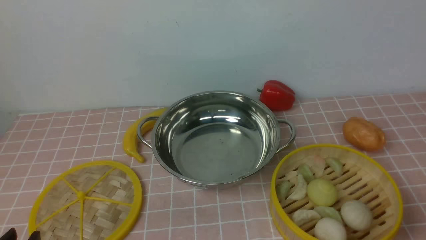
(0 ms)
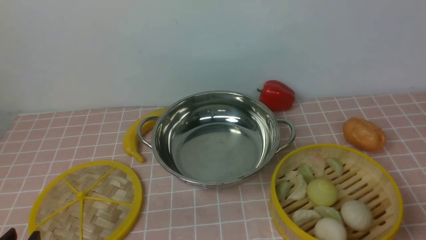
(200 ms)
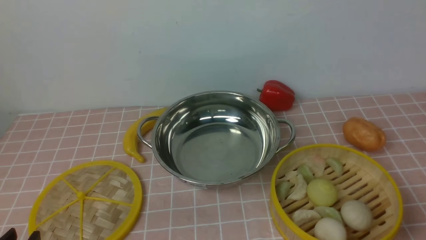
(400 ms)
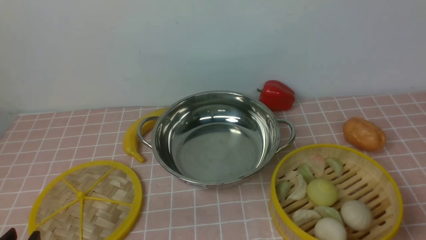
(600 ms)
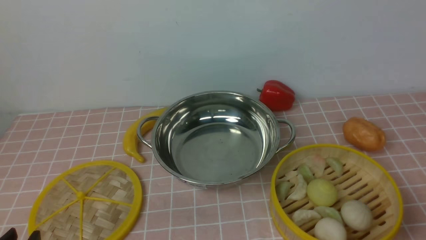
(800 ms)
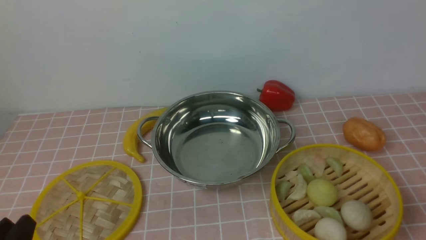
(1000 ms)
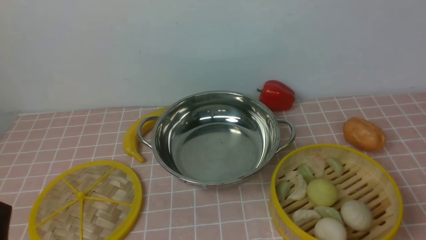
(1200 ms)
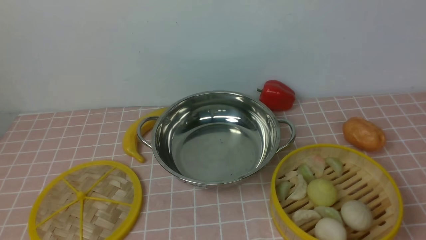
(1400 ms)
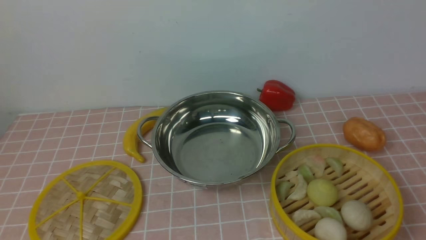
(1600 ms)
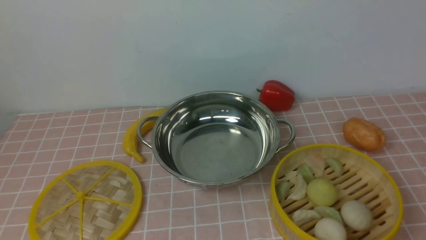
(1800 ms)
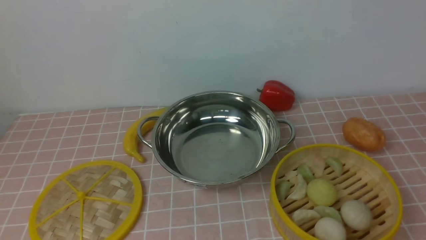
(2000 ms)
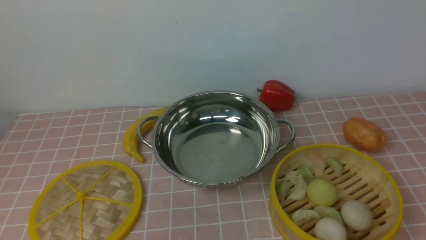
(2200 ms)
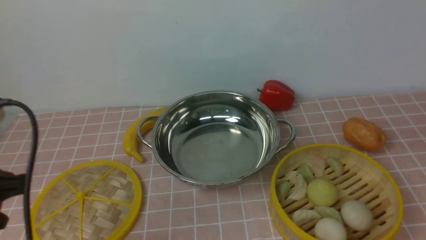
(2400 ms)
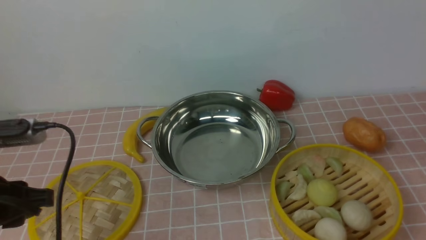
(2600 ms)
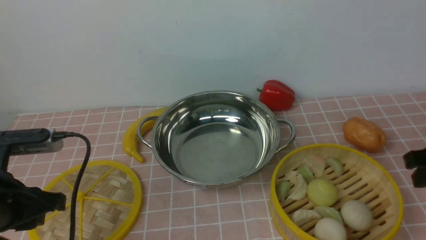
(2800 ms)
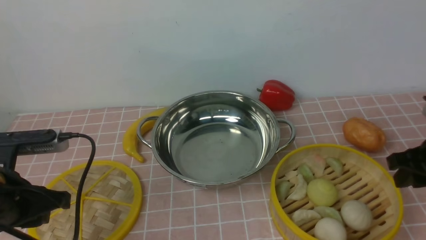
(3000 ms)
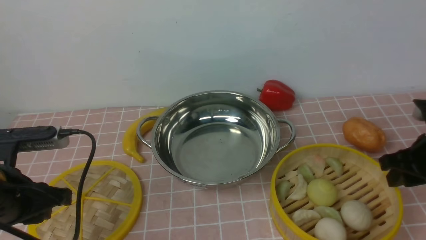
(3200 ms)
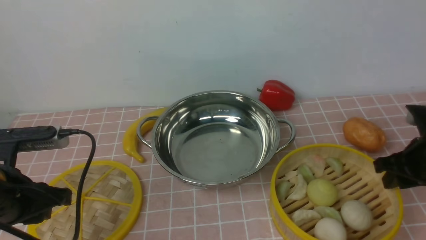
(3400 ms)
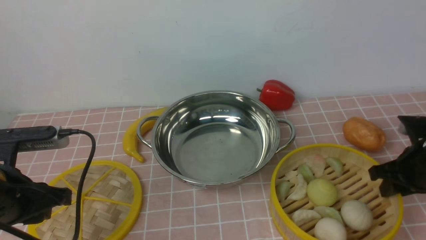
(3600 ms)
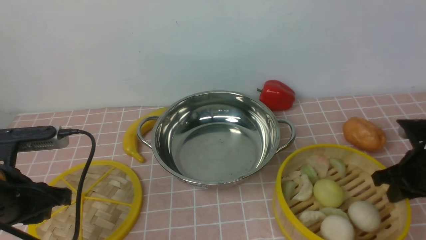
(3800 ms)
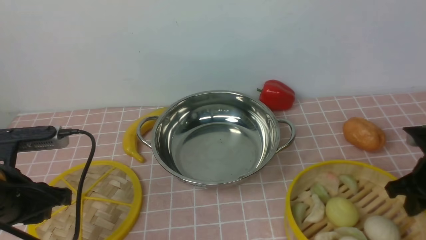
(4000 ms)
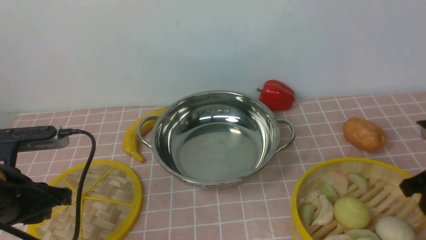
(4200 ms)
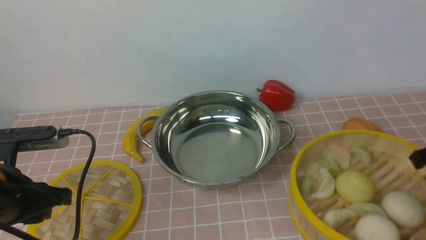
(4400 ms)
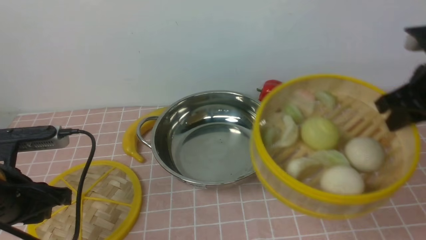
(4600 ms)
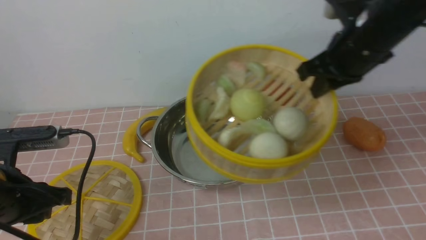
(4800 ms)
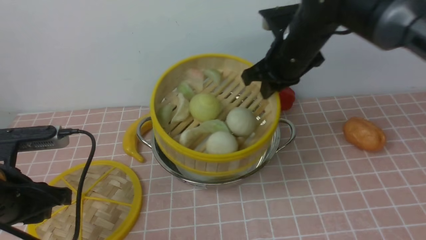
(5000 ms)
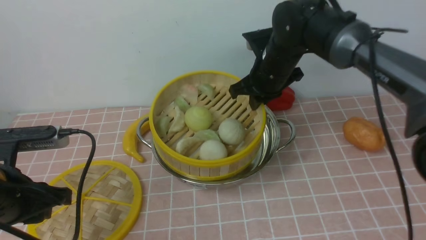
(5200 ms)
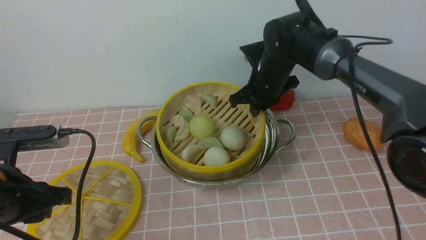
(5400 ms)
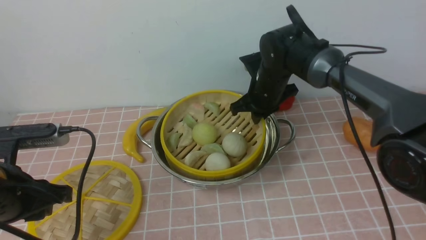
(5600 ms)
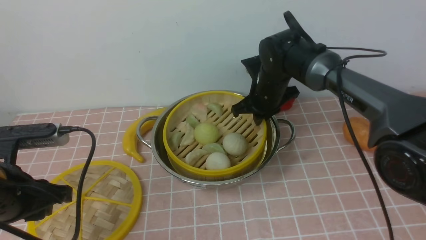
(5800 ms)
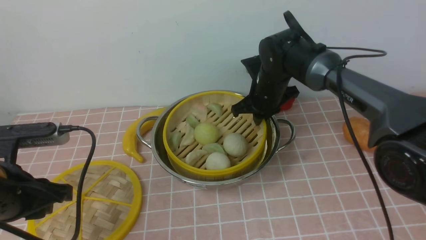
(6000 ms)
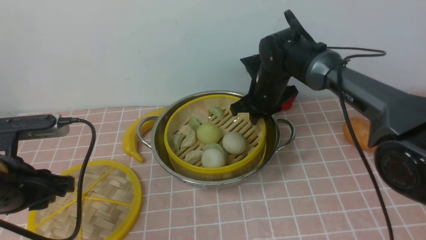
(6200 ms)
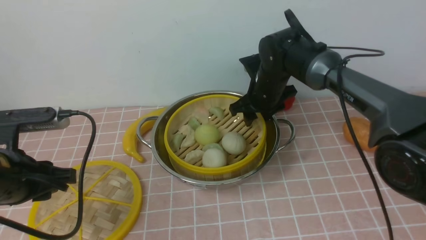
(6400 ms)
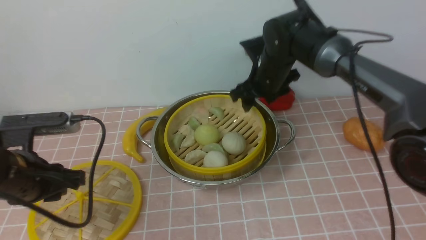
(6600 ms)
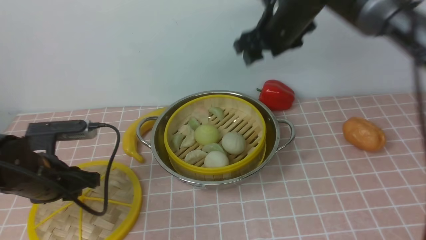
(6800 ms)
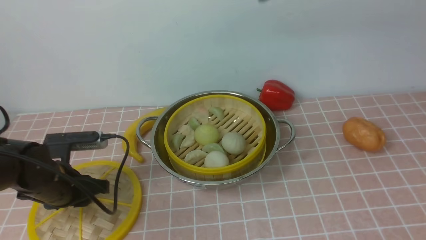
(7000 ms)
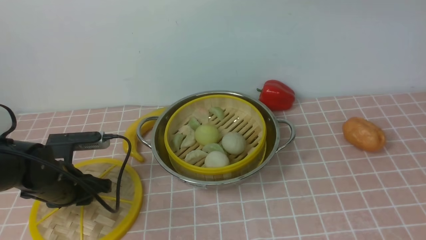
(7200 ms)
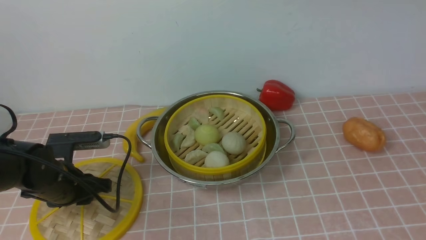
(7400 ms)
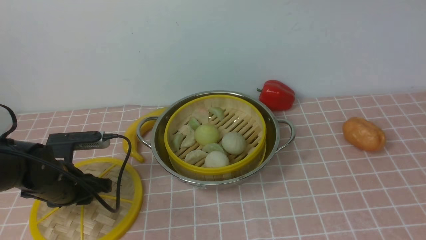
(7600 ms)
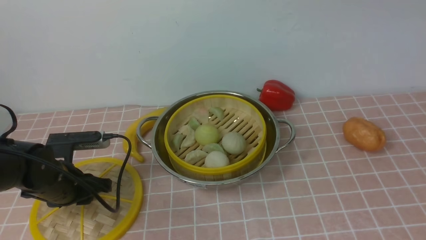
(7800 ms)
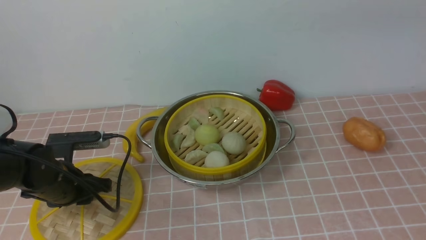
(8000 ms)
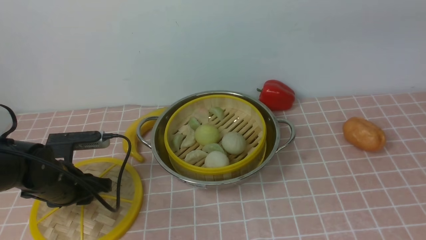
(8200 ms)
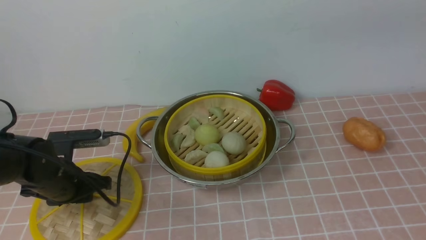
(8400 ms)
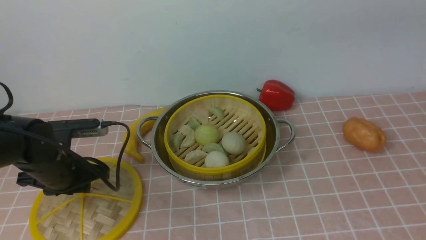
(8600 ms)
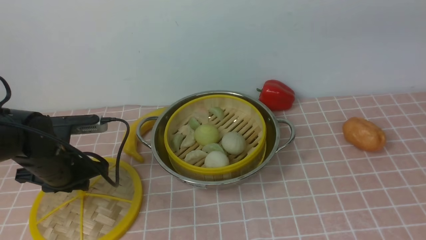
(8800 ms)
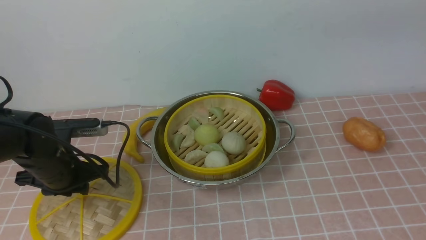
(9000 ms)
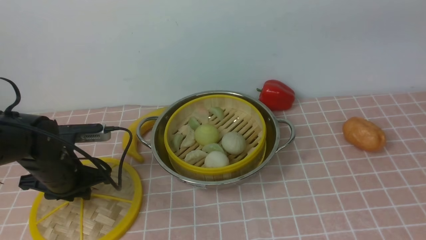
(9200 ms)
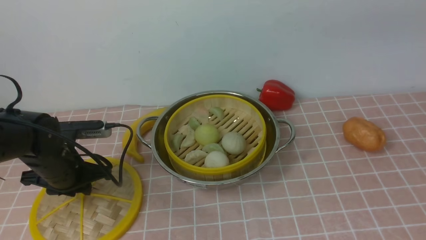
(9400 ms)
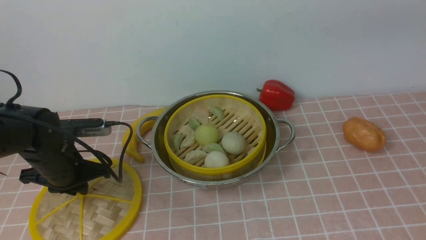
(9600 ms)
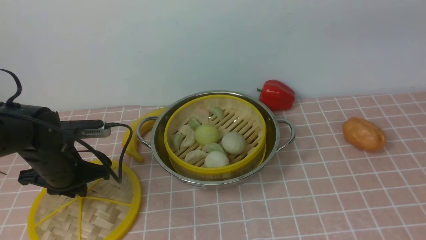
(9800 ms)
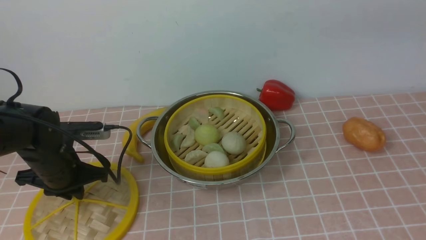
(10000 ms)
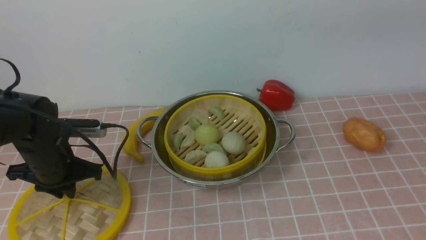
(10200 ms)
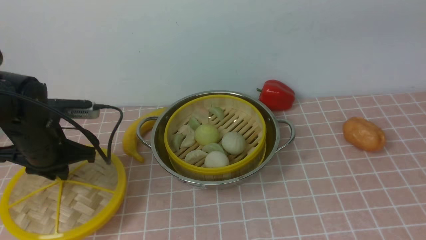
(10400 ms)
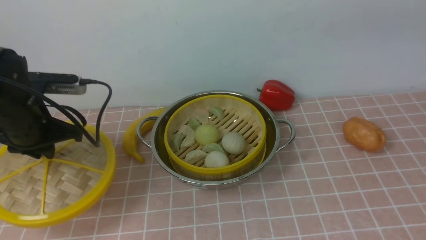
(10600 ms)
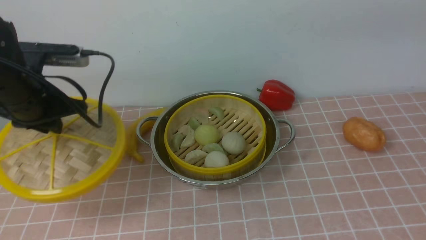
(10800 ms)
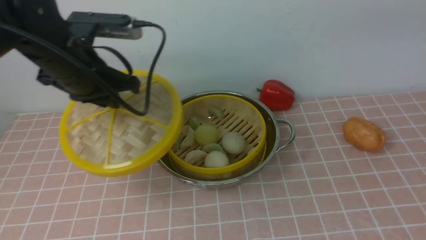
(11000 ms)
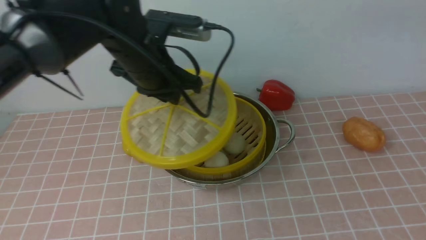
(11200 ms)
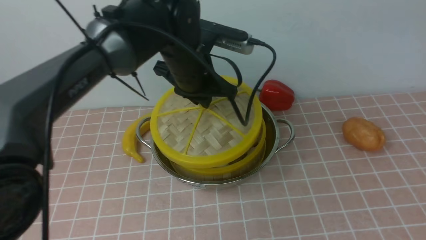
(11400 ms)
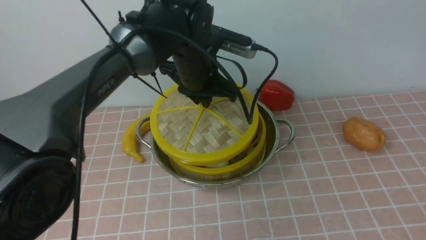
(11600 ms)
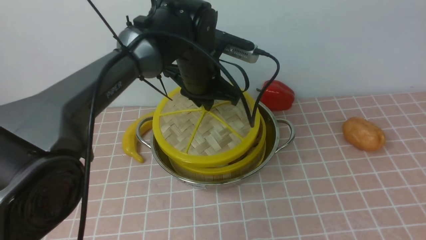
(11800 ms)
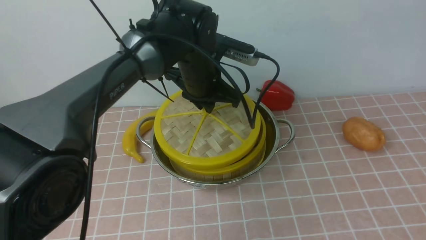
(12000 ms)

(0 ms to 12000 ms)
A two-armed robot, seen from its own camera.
Task of the whole recording: place the steamer in the pot on the pink tablecloth, and put the lid on the steamer.
Step, 0 ms - 3800 ms: use the right arm to lift the steamer closest to it.
Step, 4200 ms - 6400 ms: use the right arm to put the steamer into the iron steamer pot in the middle.
Step, 6600 ms - 10200 ms: use the left arm to lift the lid of the steamer.
1600 ms - 3000 ms: The right gripper goes about 20 cm forward. The left gripper is displaced forward by roughly 15 cm.
3000 ms - 4400 ms: The right gripper reaches roughly 5 cm downward, then returns, and closes.
4400 ms - 6000 ms: The right gripper travels to the left and forward by some 30 cm.
6000 ms - 7600 ms: The right gripper heads upward and backward, covering about 40 cm, and opens up. The left gripper moves downward and forward, approximately 15 cm.
9000 ms - 10400 ms: The grippers stay close to where they were, moving slightly.
10400 ms - 12000 ms: The left gripper heads to the right and forward, covering approximately 25 cm. Meanwhile the right gripper heads backward, upward and to the right, covering about 20 cm.

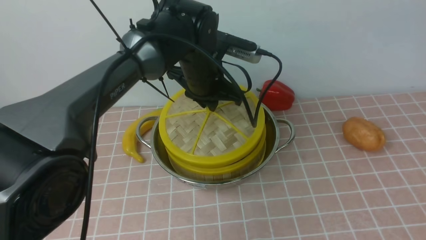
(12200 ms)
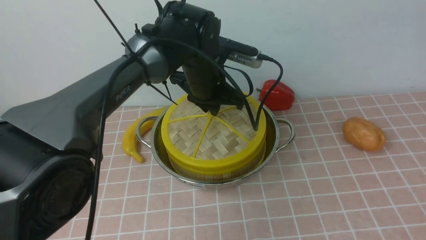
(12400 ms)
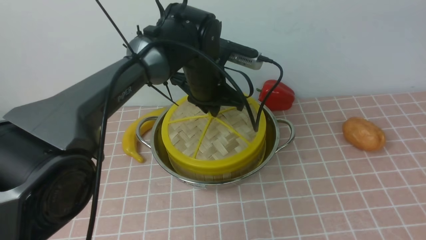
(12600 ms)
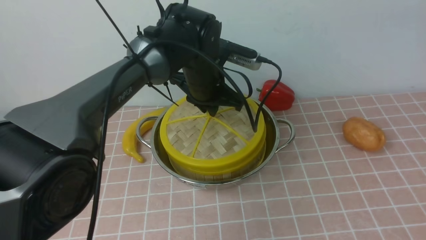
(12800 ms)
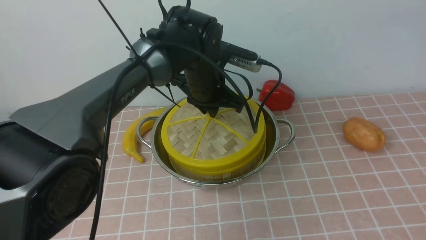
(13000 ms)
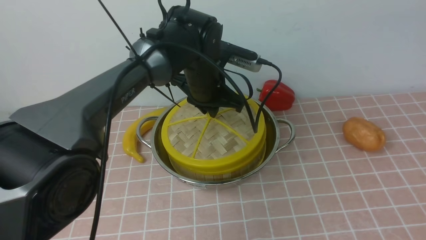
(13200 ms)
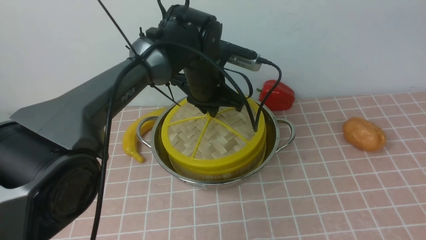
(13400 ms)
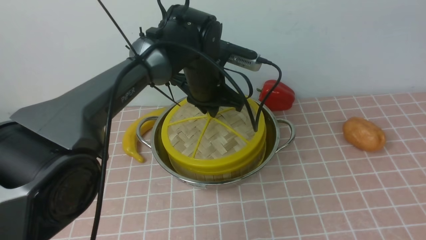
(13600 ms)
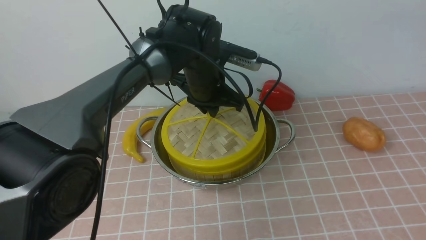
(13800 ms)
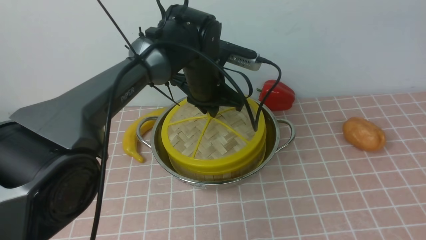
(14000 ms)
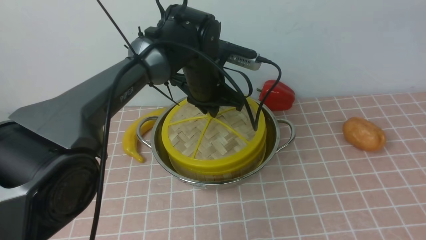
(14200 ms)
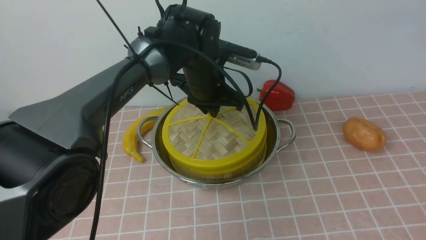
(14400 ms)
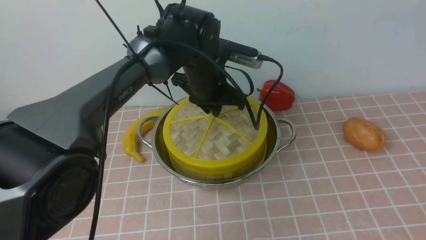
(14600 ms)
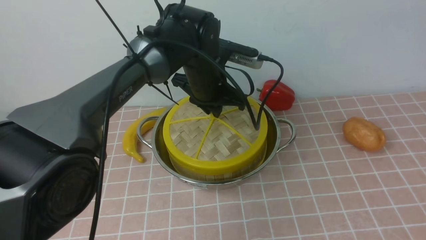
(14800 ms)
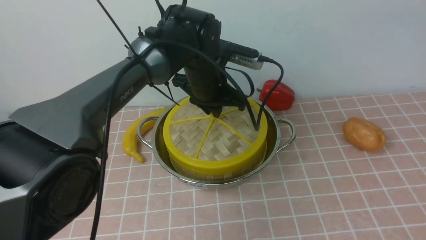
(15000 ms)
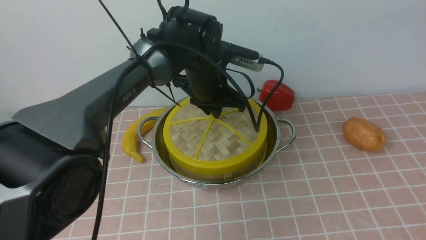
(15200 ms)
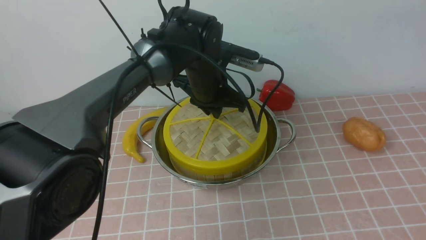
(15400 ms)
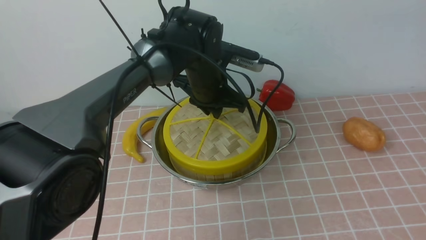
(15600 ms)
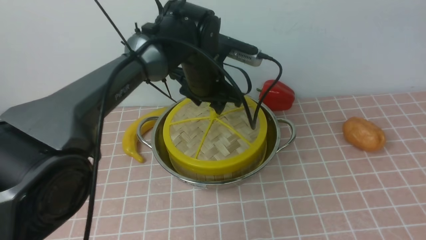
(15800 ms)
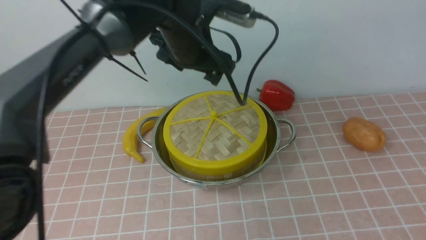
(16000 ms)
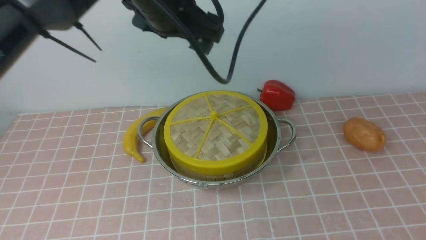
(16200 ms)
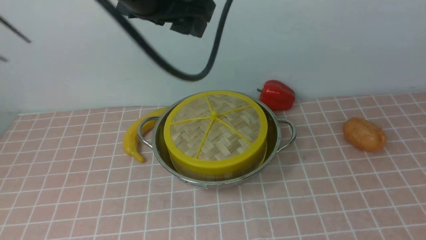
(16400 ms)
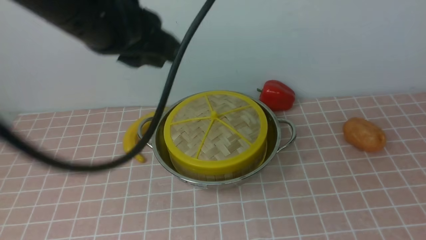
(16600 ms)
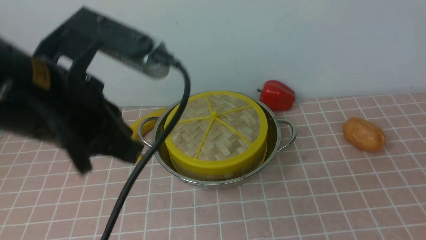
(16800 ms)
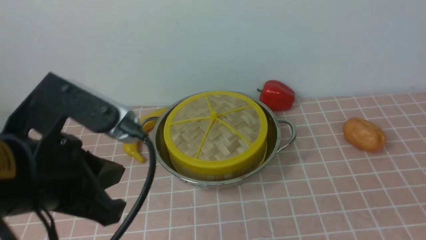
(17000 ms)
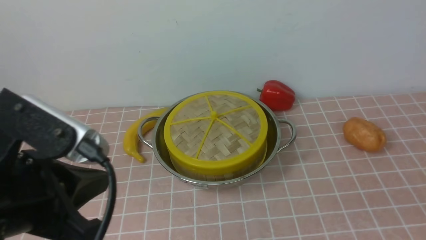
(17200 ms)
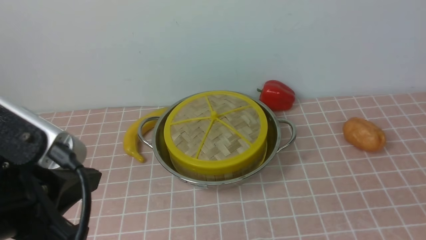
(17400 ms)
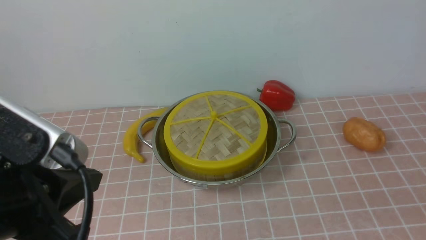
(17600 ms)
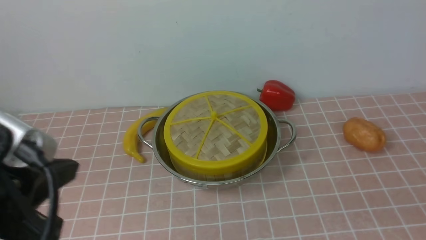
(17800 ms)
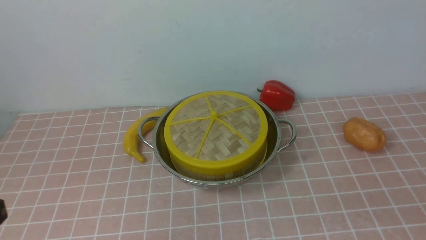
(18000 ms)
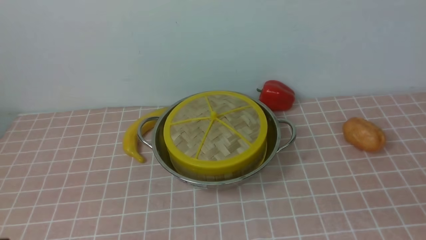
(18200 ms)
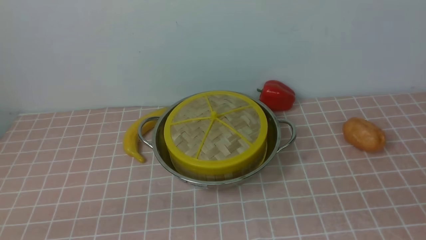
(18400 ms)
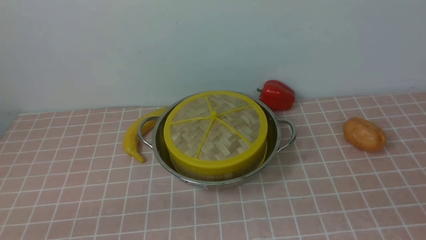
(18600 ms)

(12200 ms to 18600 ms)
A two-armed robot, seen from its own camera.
Task of the whole recording: place the steamer in the pot on the pink tablecloth, and put the lid on the steamer.
Step, 12200 ms - 15800 ms: use the left arm to place the steamer lid on the steamer.
12200 ms - 13800 ms: The grippers stay close to where they were, moving slightly.
13800 ms - 15400 ms: Neither gripper changes place.
15400 ms - 17000 ms: The left gripper moves backward, to the left and upward, roughly 30 cm, and opens, then closes once more. Meanwhile the right gripper goes roughly 25 cm downward and backward, and closes its fingers.
17000 ms - 18600 ms: The left gripper goes some 20 cm downward, backward and to the left.
